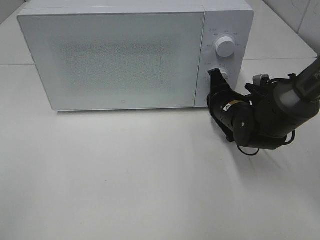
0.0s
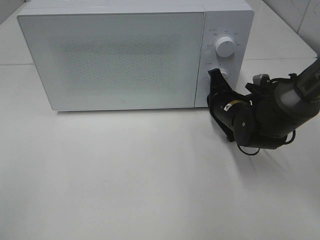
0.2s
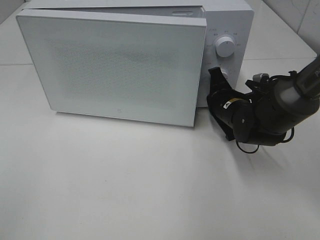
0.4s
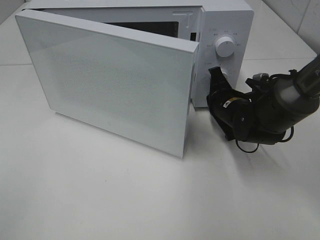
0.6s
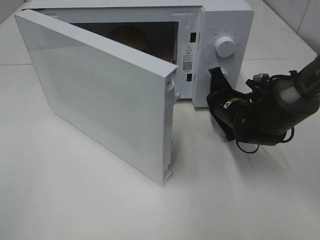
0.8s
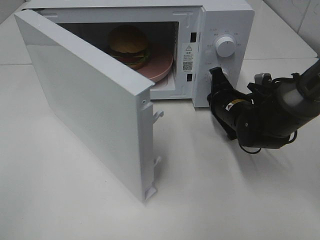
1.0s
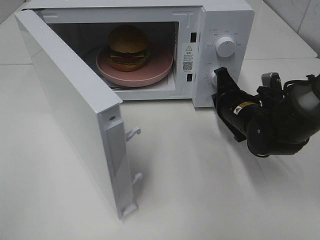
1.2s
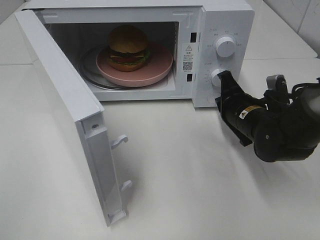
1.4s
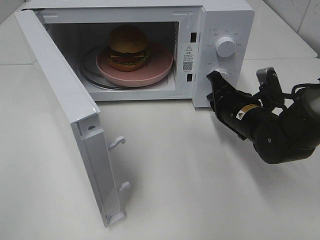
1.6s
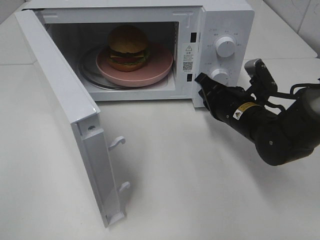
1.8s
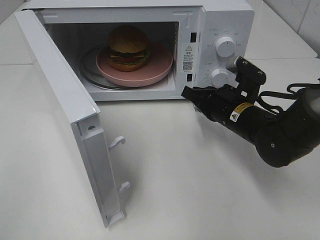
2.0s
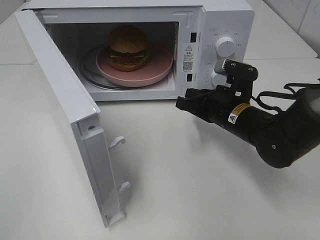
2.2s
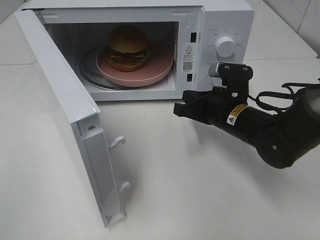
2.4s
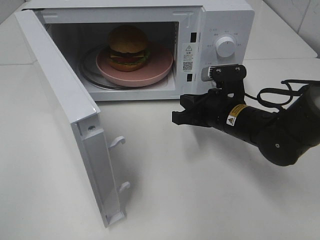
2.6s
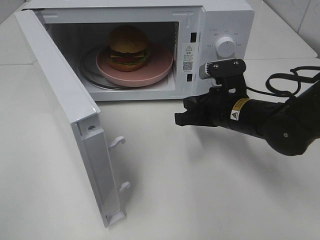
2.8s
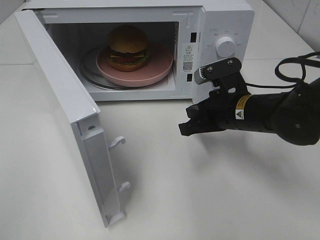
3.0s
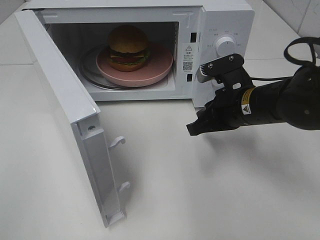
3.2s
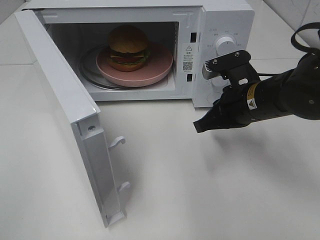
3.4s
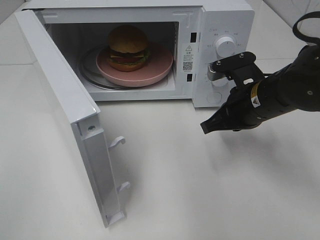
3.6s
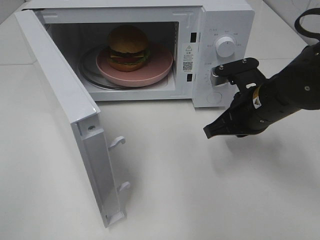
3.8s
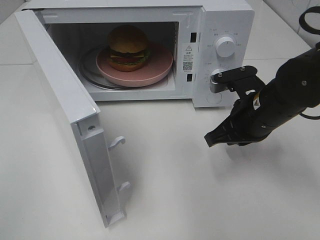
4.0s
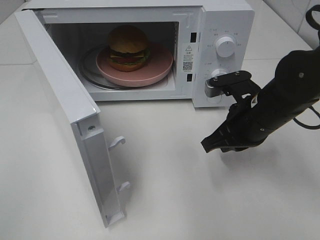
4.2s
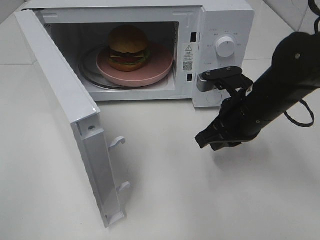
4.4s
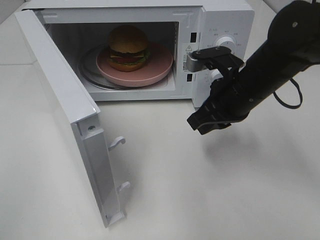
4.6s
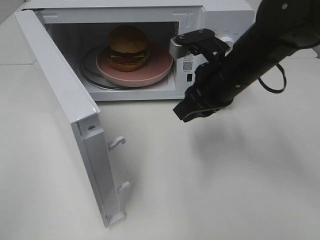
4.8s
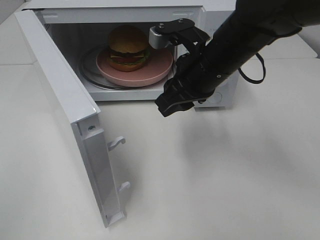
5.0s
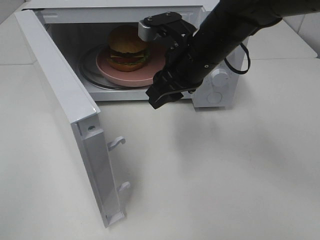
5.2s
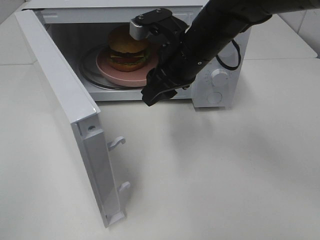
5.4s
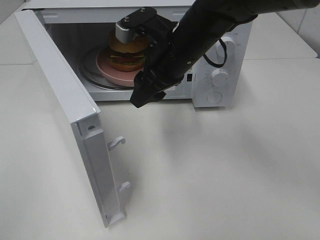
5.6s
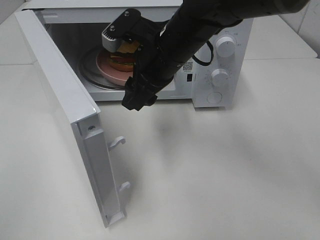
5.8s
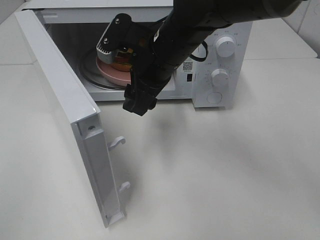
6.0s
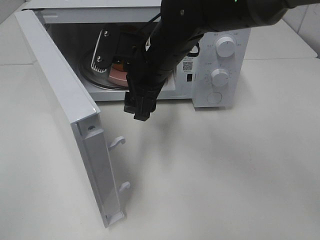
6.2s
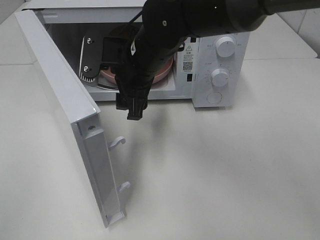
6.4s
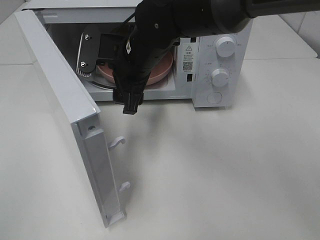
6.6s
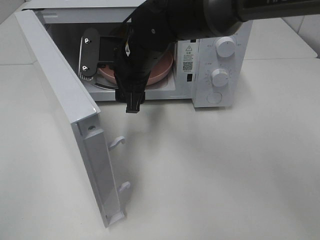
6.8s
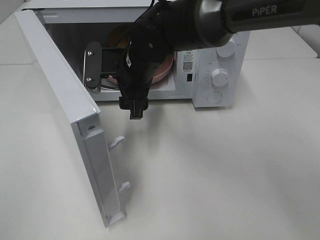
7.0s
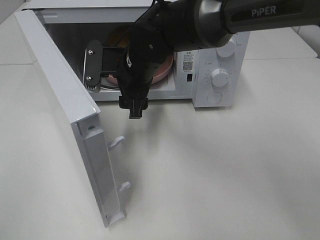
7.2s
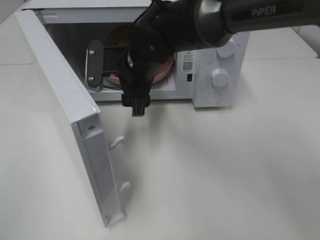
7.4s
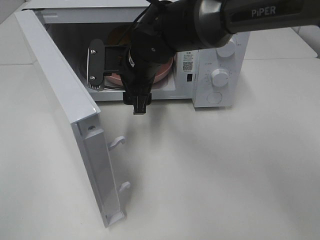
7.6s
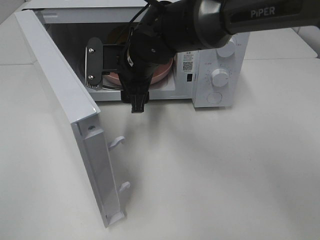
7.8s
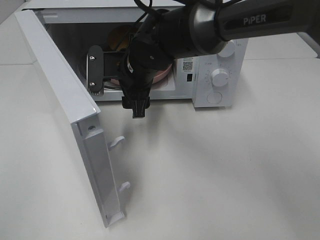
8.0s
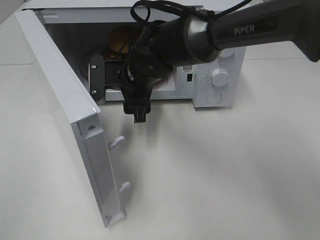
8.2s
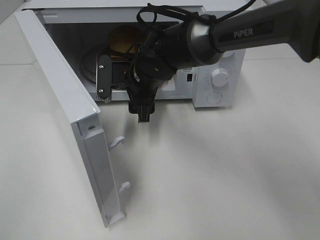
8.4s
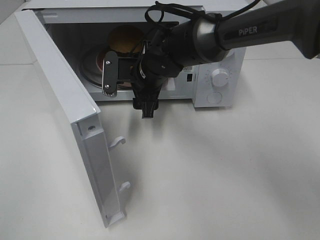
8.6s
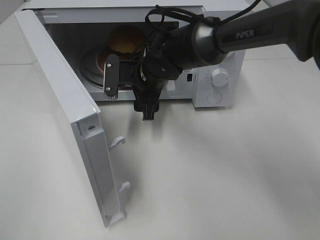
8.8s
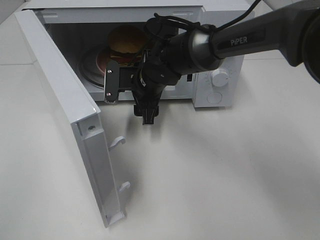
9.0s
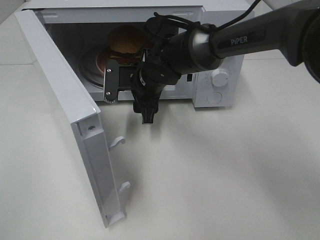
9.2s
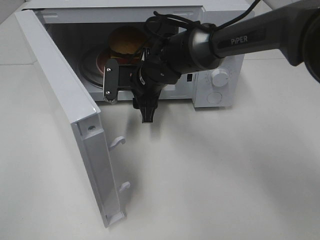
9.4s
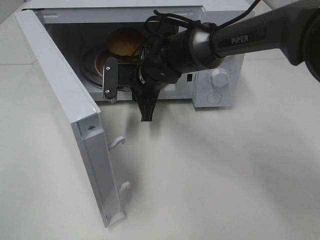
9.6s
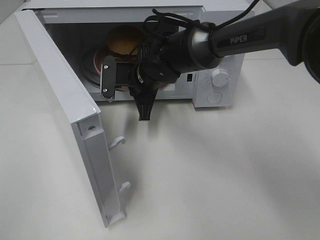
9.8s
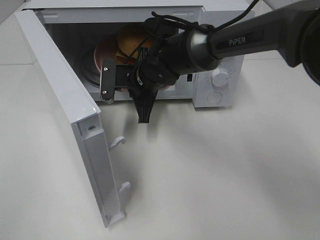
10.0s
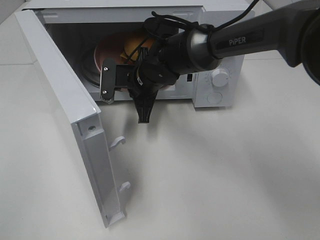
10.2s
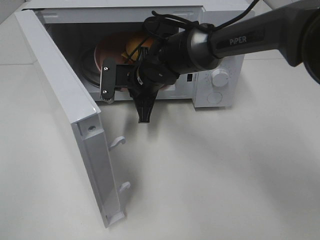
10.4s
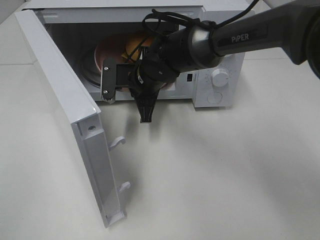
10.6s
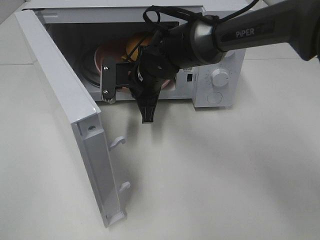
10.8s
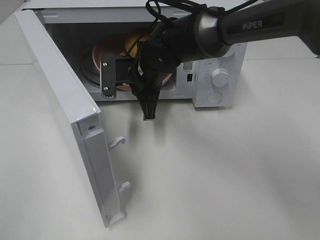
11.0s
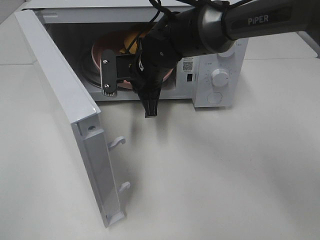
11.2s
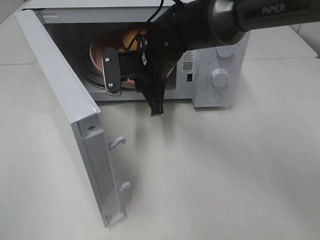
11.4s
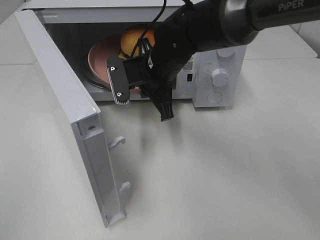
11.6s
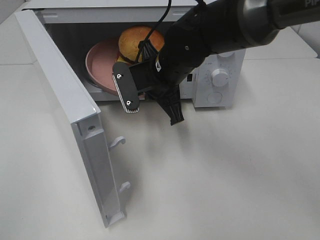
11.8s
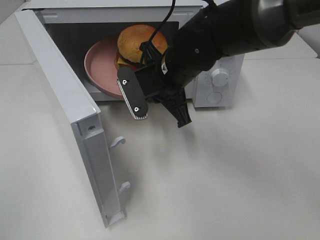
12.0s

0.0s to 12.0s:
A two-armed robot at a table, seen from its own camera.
Task of the whole recording: Heat the burger.
Step, 1.4s to 9.8s: Right hand: grab the plate with the hamburger.
4.4s to 6.0s: The right gripper is displaced to the left by about 15 cm, and opens.
6.0s to 7.6s: The right gripper moves some 5 cm.
7.6s to 9.0s: The right gripper shifts some 5 cm downward.
9.0s to 10.4s: The right gripper closes its fingers.
10.4s to 12.0s: The right gripper shifts some 10 cm backward and upward.

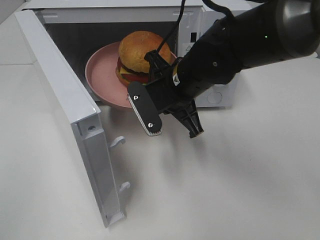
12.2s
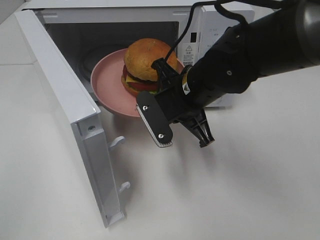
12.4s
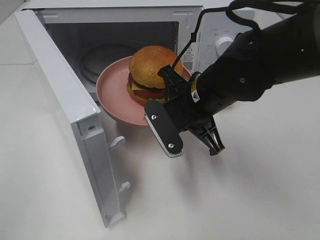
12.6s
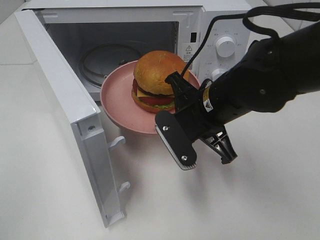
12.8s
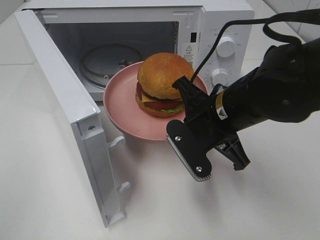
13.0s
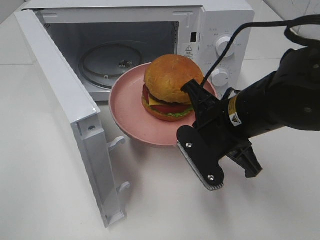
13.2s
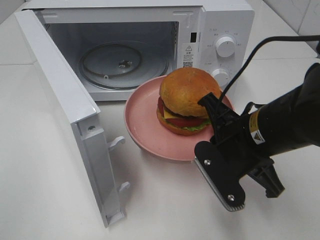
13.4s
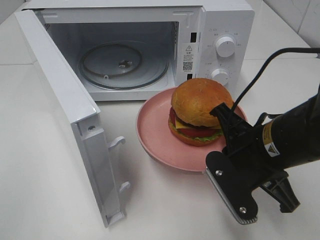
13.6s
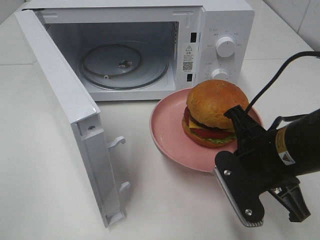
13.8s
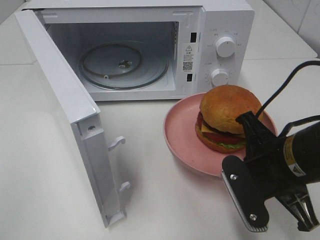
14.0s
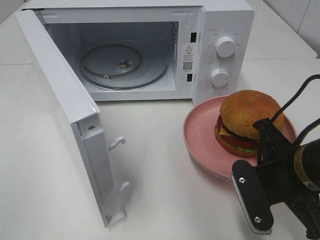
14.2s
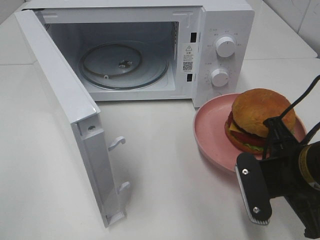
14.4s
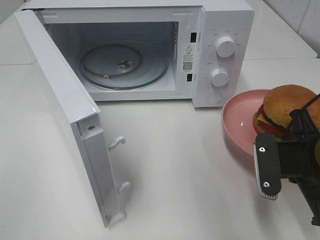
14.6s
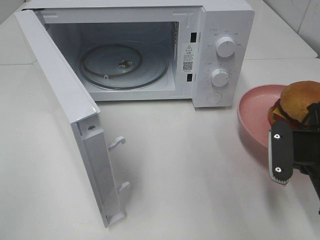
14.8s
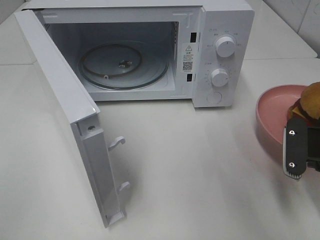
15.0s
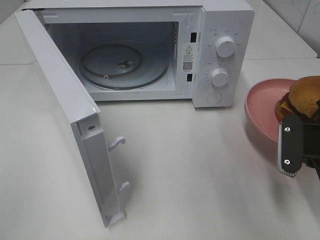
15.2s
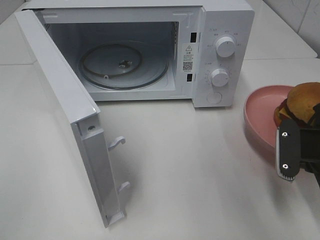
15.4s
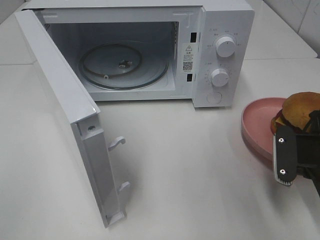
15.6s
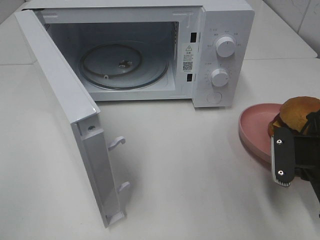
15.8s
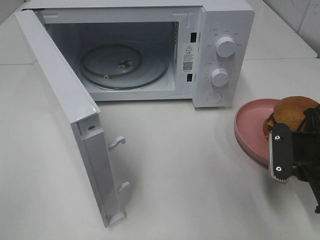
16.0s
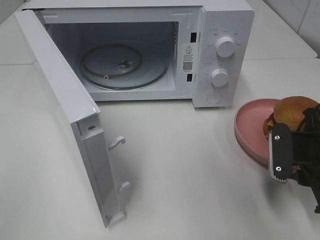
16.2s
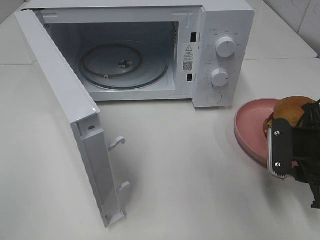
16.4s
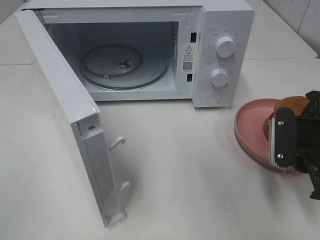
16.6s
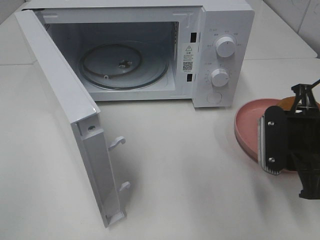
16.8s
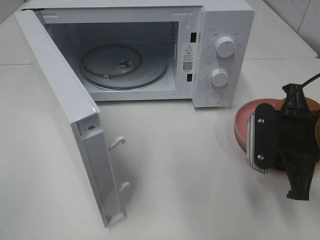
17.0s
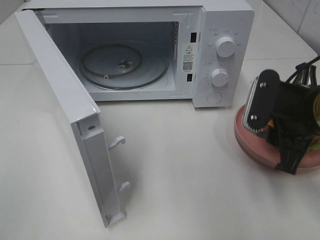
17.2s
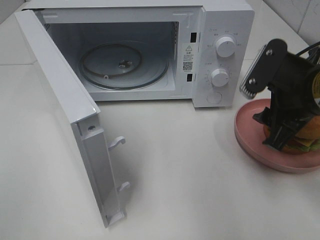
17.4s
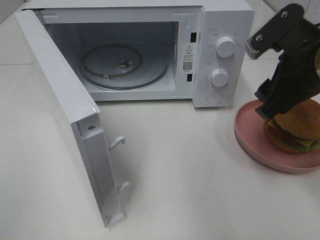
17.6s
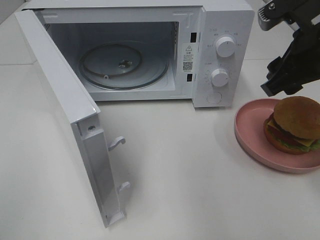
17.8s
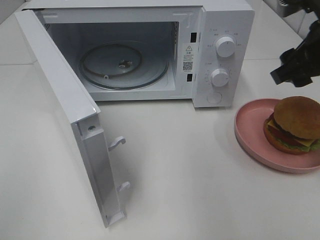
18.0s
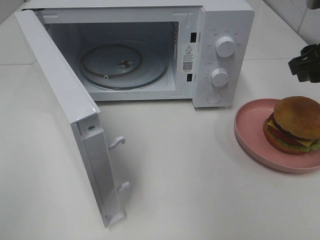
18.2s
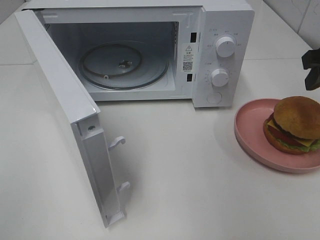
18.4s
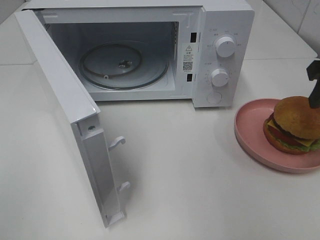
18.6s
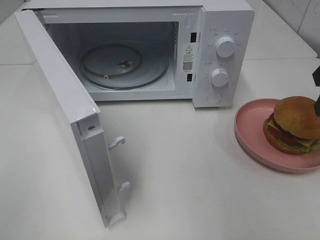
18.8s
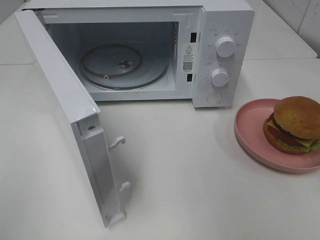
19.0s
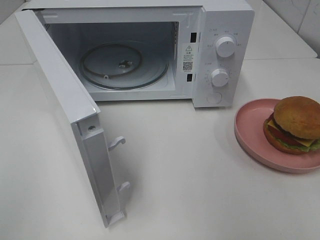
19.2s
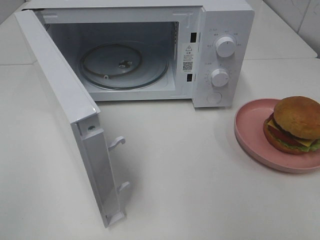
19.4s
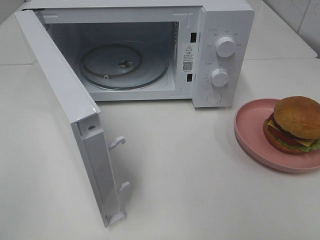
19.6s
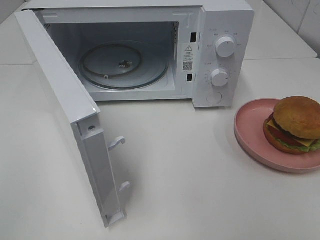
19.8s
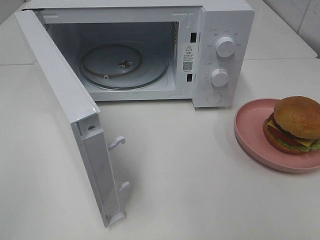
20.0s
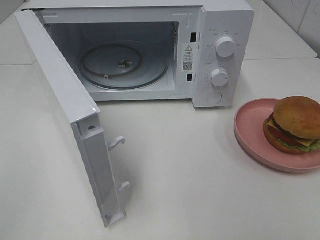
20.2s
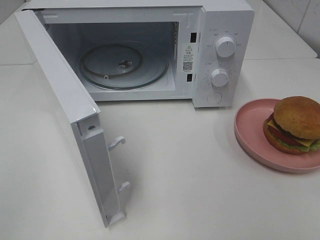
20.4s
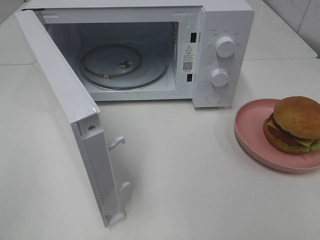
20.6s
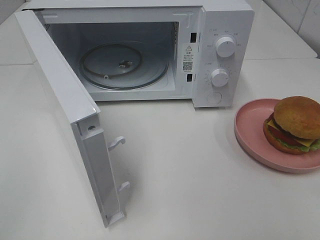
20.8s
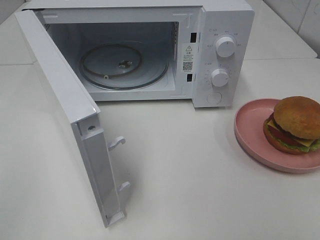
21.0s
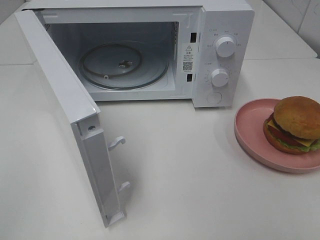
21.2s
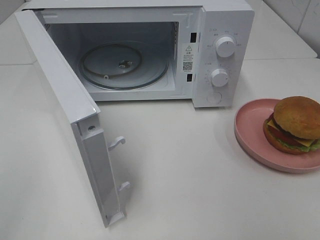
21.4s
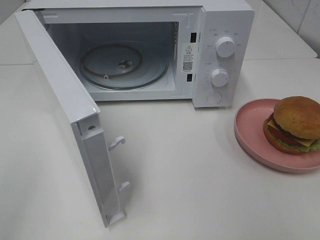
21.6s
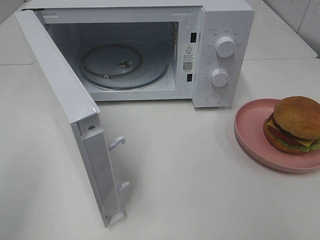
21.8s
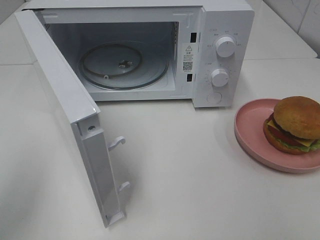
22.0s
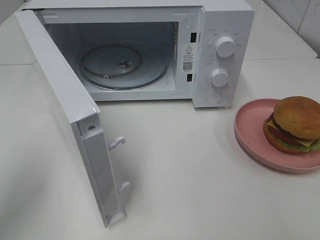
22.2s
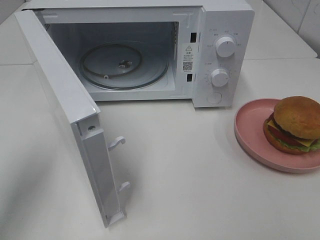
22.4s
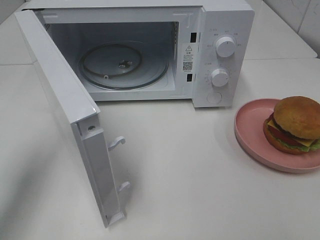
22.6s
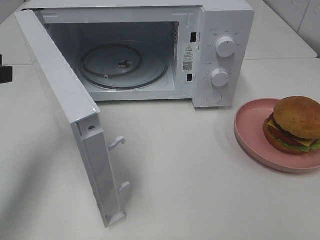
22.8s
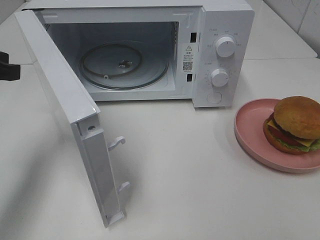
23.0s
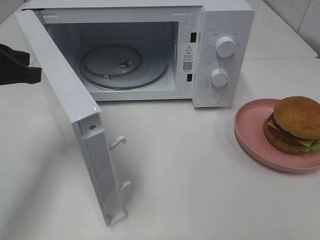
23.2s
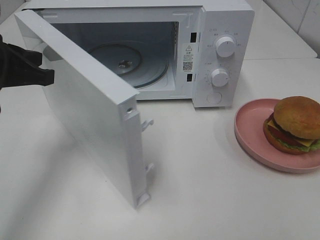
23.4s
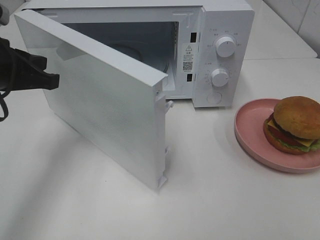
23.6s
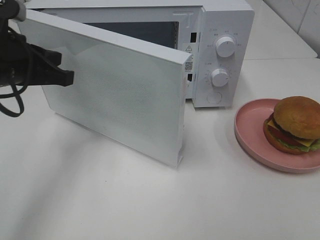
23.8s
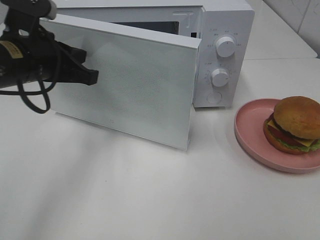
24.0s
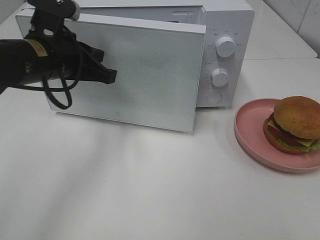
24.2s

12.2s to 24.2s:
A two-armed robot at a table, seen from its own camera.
Task of the whole recording: Heat the burger.
Step, 12.2s to 16.0s: Right hand: place the plate on the table.
12.2s to 13.8s: The right gripper heads backward and to the right, covering roughly 15 cm.
13.8s to 15.2s: The right gripper shifts roughly 10 cm to the right.
15.2s to 16.6s: The right gripper opens up.
16.6s to 18.2s: The right gripper goes some 15 cm upward and forward.
18.2s to 19.8s: The right gripper goes some 20 cm backward.
21.2s to 22.6s: The left gripper goes roughly 25 cm forward.
22.6s to 24.2s: The left gripper travels to the right and forward by approximately 15 cm.
